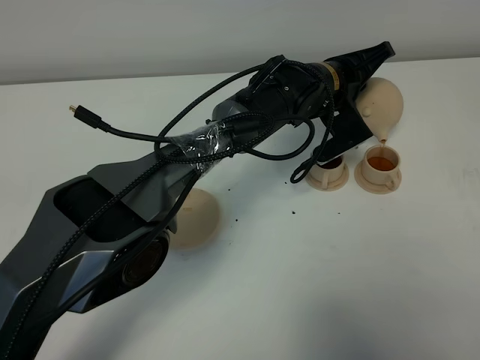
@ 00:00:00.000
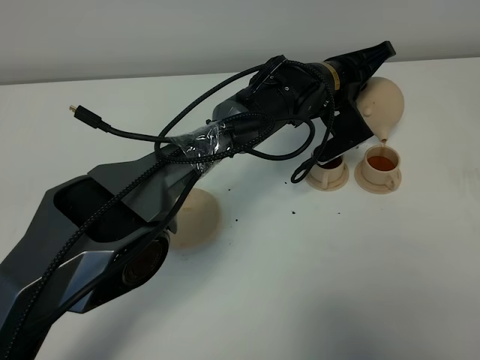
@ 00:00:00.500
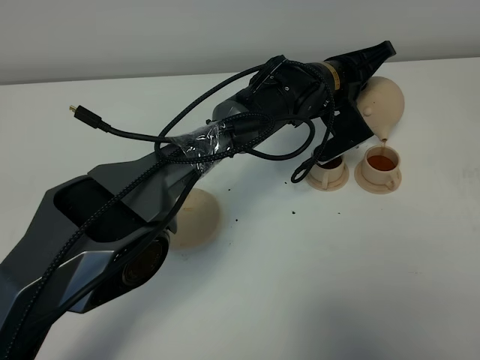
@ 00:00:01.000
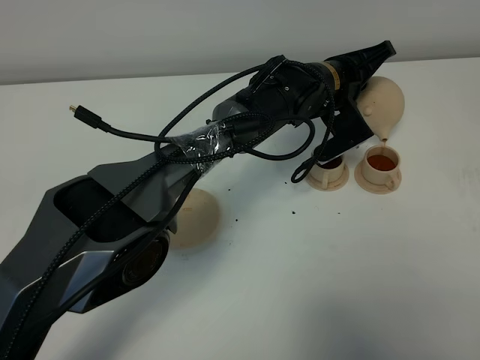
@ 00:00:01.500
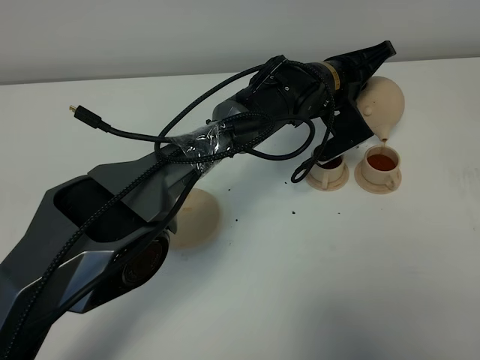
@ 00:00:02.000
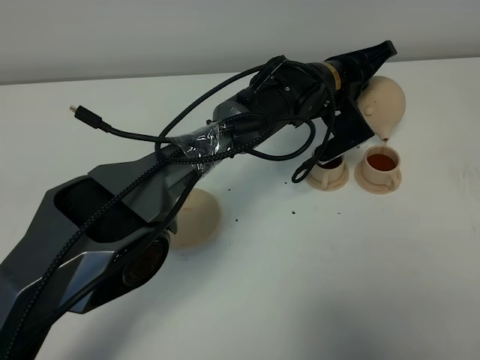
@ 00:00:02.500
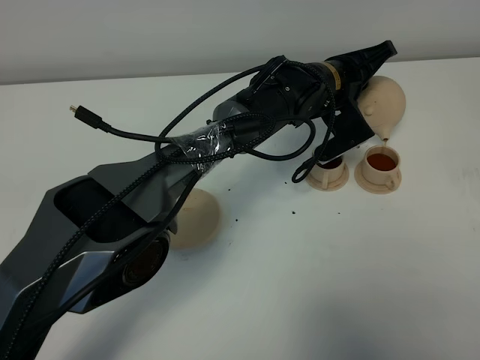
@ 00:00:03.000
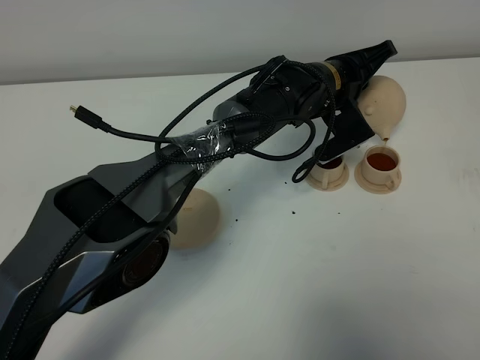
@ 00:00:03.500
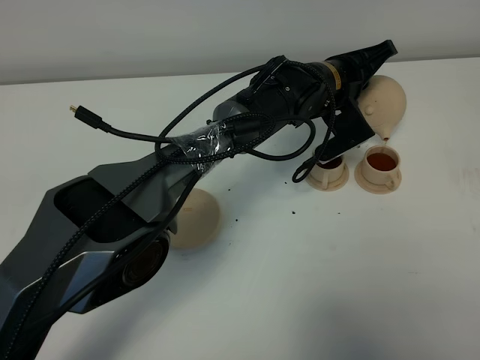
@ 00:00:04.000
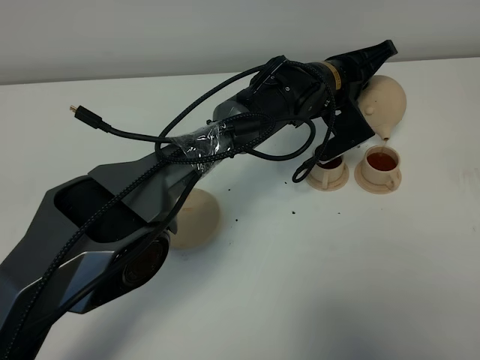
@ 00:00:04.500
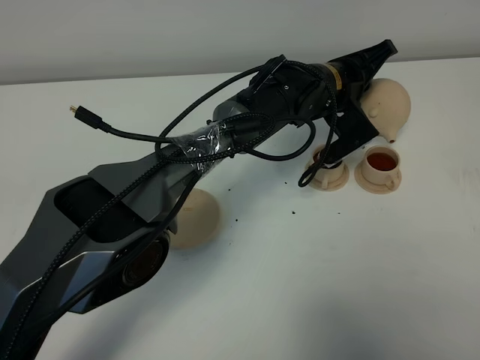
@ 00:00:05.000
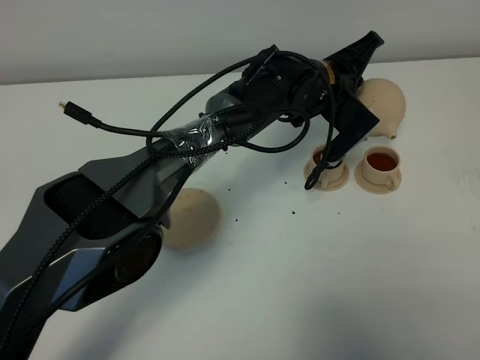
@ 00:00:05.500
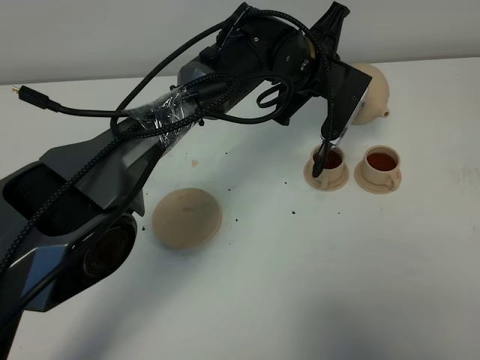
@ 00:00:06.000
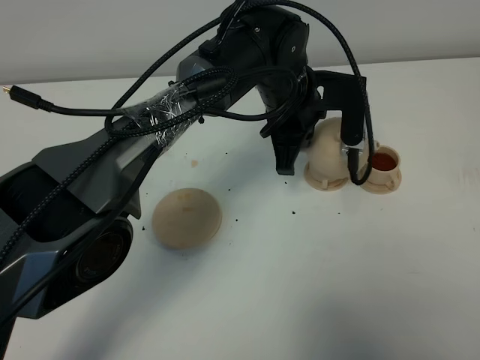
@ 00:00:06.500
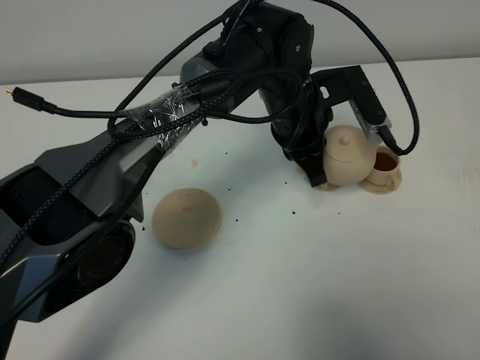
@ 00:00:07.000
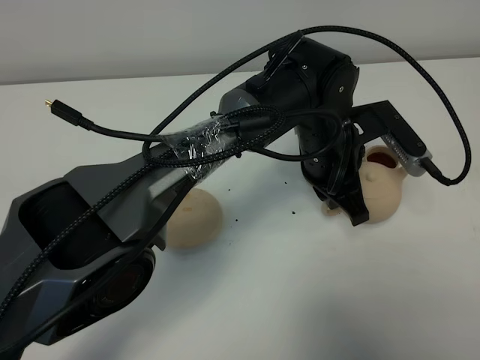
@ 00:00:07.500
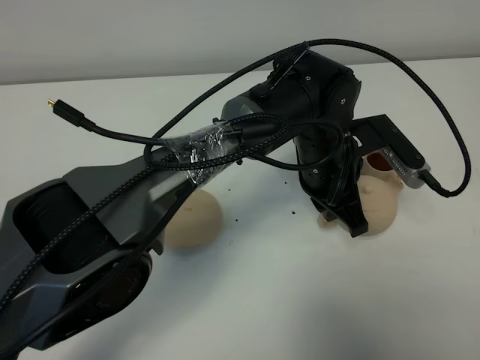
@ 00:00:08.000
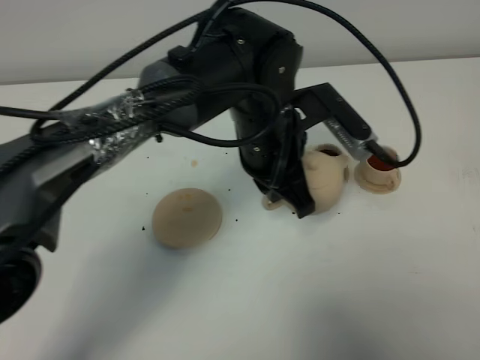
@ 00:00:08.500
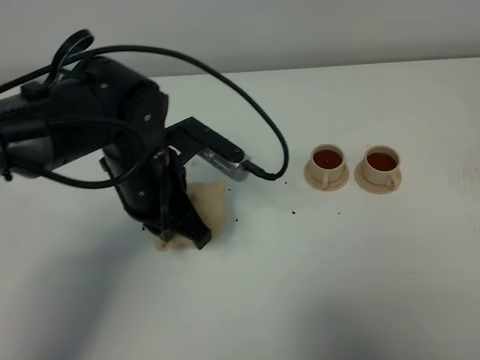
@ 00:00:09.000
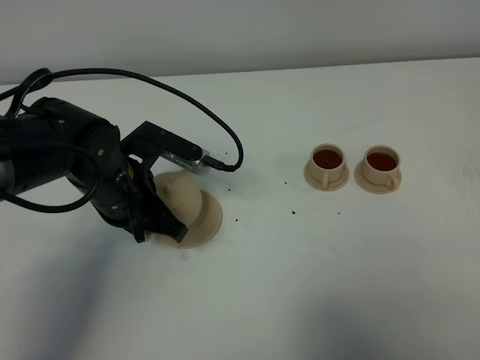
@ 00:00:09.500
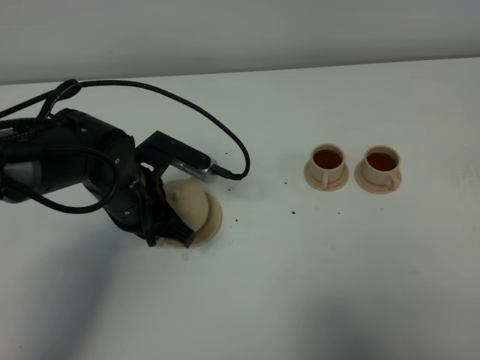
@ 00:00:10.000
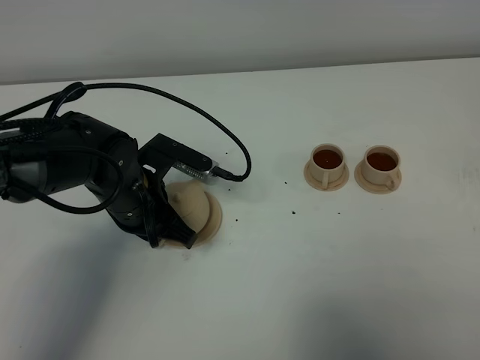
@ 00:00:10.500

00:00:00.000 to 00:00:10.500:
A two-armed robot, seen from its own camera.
Task of the whole recording: grasp the brown teapot and pour the tea into the two brown teacups one by one, put the brown teapot back in its original place.
Step, 00:00:00.000 to 00:00:05.500: Pour tea into the teacup with the left gripper.
00:00:00.000 to 00:00:04.000: Both grippers stay put.
00:00:04.000 to 00:00:06.500: The left gripper moves approximately 10 cm.
00:00:06.500 to 00:00:08.500: The left gripper heads backward, covering approximately 10 cm.
00:00:08.500 to 00:00:10.500: The left gripper moves to the left and downward, roughly 20 cm.

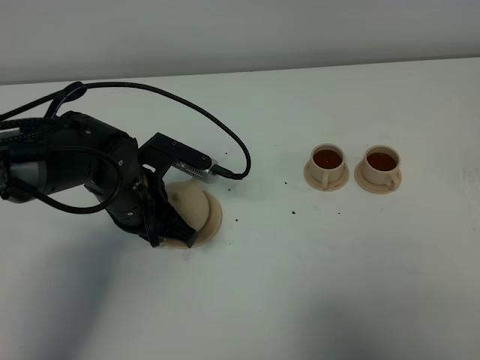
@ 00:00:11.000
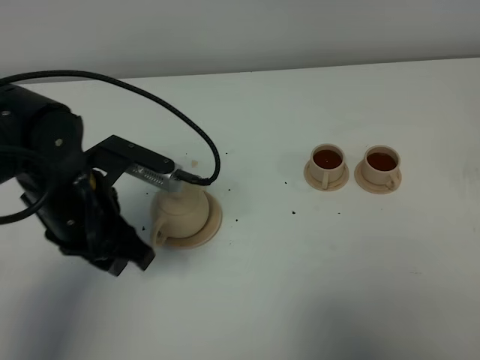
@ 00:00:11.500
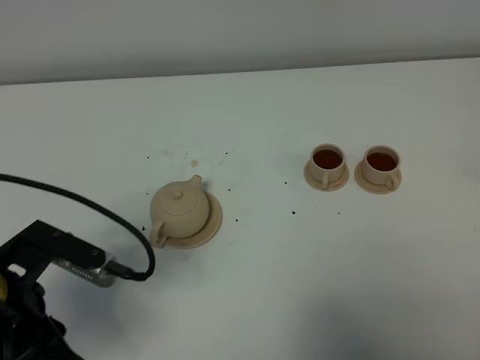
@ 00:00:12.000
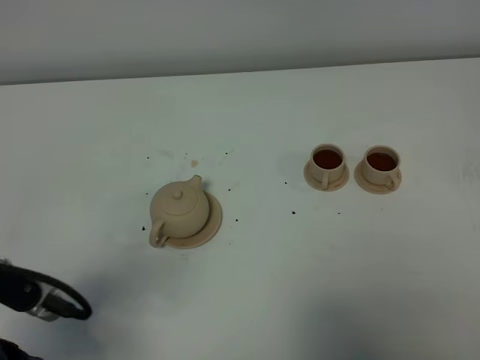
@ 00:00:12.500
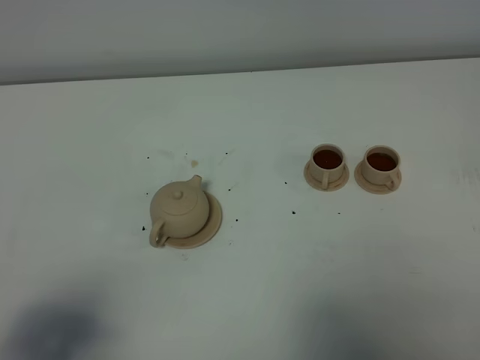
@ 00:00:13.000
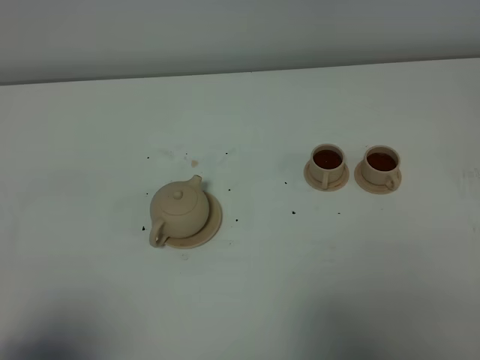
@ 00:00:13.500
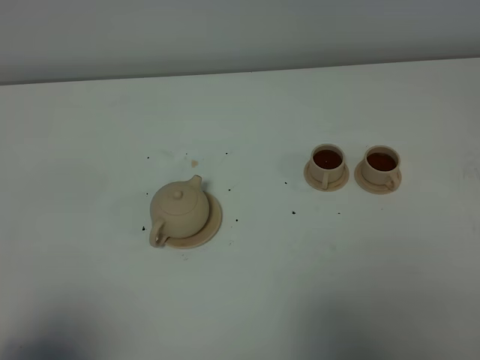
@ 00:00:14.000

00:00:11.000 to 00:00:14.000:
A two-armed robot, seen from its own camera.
Task of the whole recording: grasp the brown teapot and pour the tea into the two brown teacups one by one, put the brown teapot back in its original place.
00:00:11.000 to 00:00:12.500: The left gripper heads backward, to the left and upward, covering about 25 cm, and opens up.
00:00:12.500 to 00:00:14.000: The left gripper moves backward, some 10 cm.

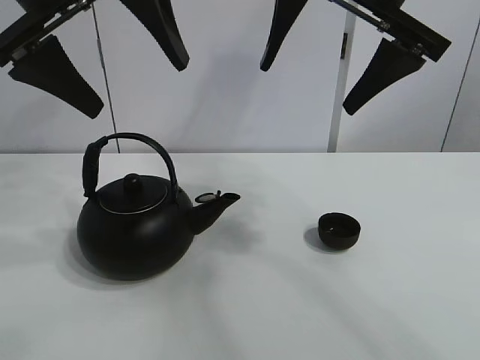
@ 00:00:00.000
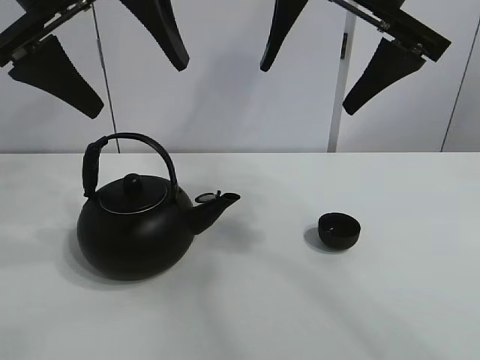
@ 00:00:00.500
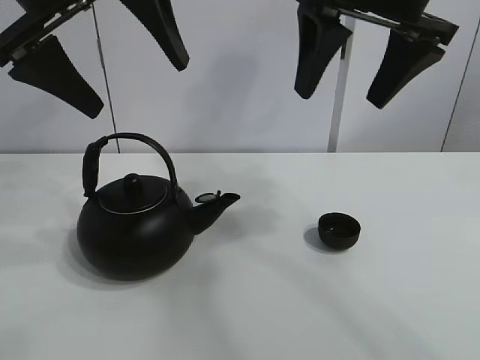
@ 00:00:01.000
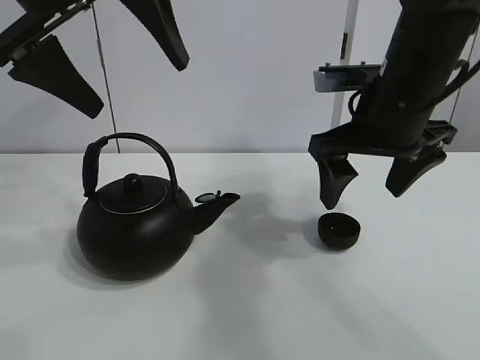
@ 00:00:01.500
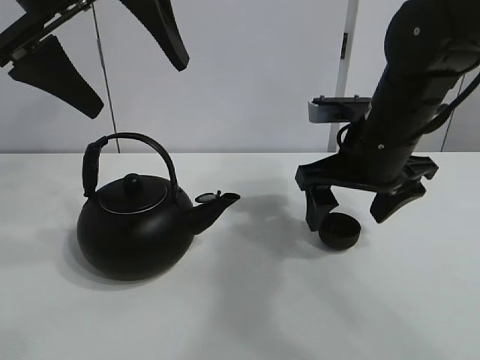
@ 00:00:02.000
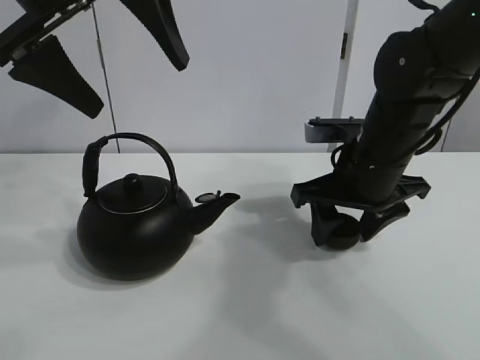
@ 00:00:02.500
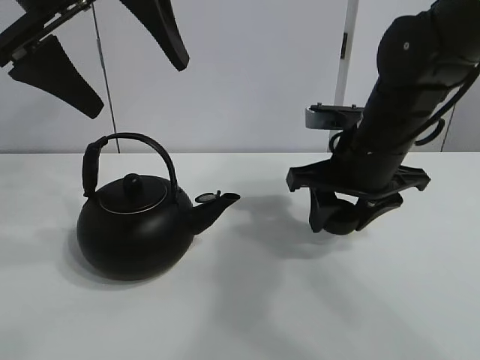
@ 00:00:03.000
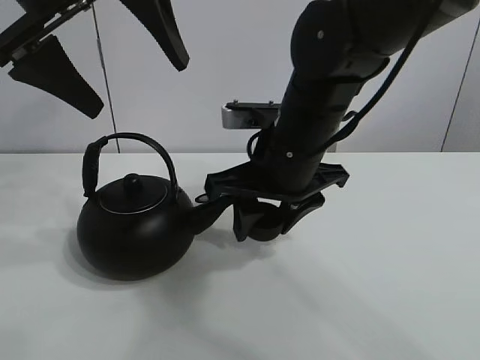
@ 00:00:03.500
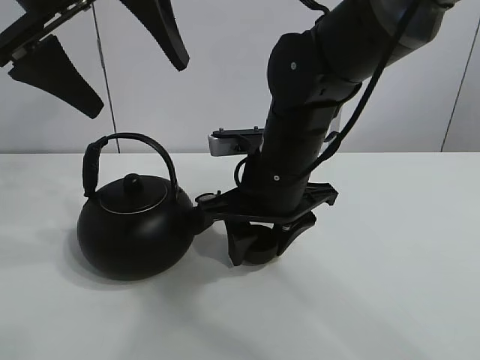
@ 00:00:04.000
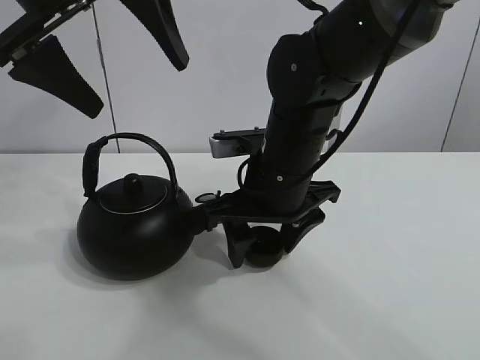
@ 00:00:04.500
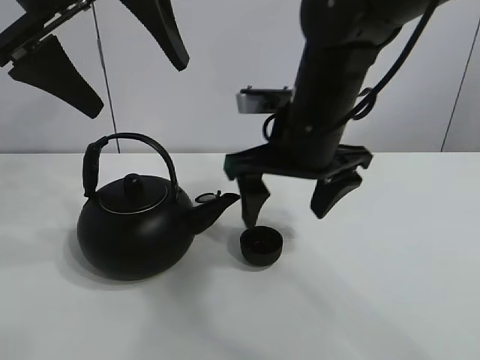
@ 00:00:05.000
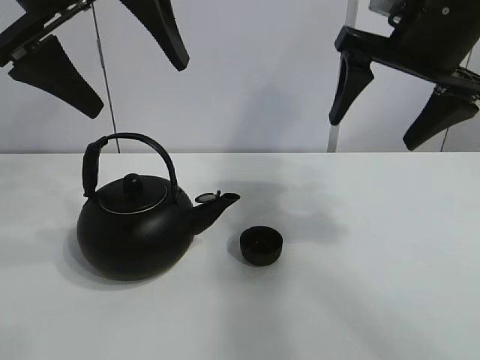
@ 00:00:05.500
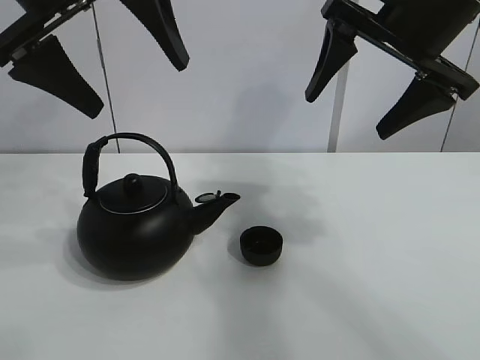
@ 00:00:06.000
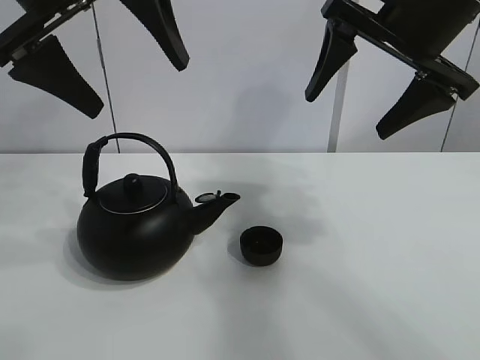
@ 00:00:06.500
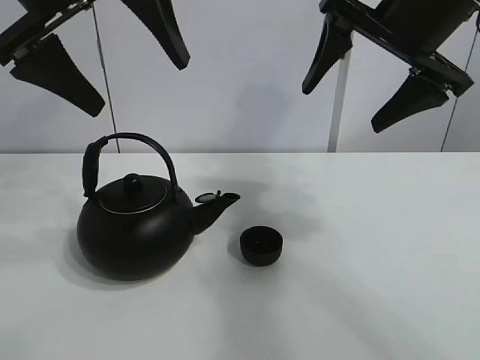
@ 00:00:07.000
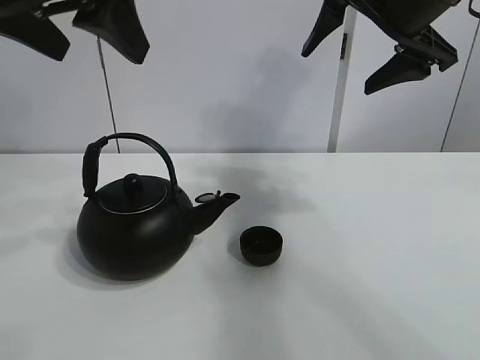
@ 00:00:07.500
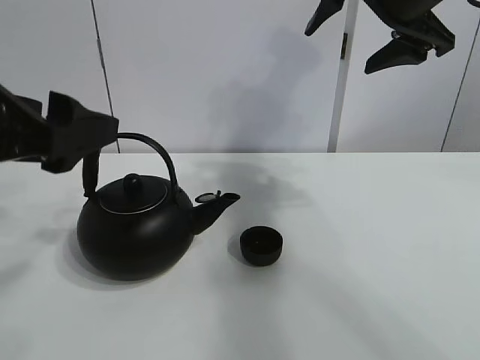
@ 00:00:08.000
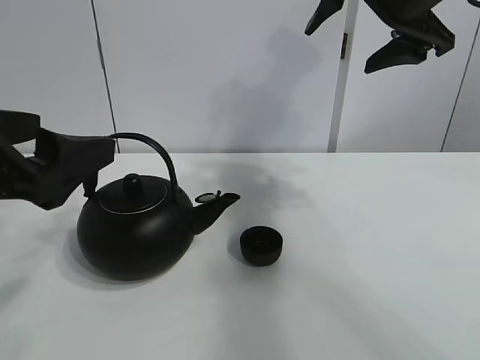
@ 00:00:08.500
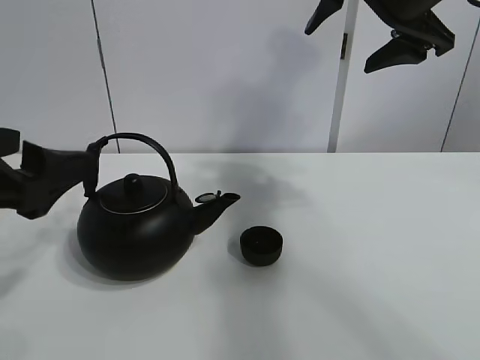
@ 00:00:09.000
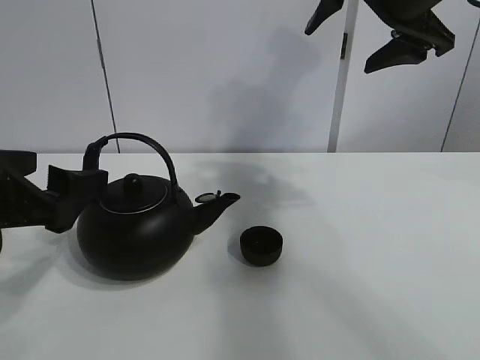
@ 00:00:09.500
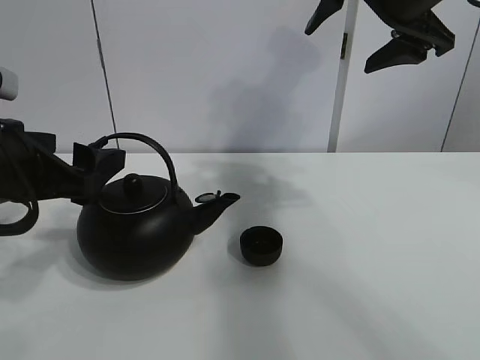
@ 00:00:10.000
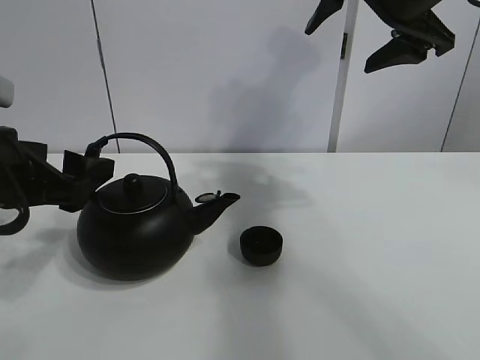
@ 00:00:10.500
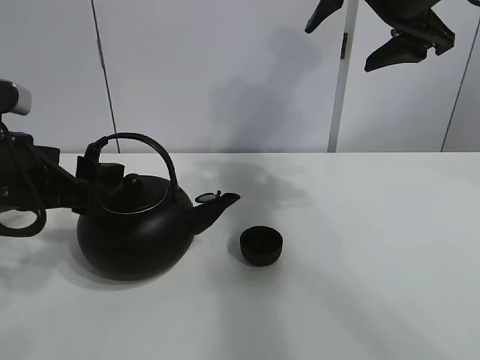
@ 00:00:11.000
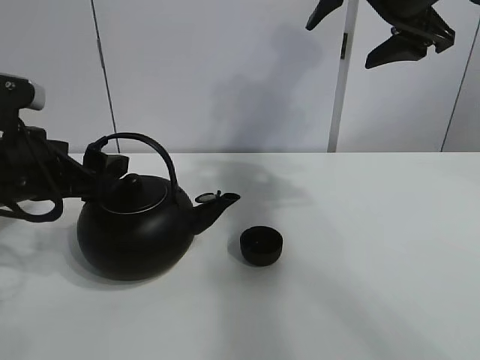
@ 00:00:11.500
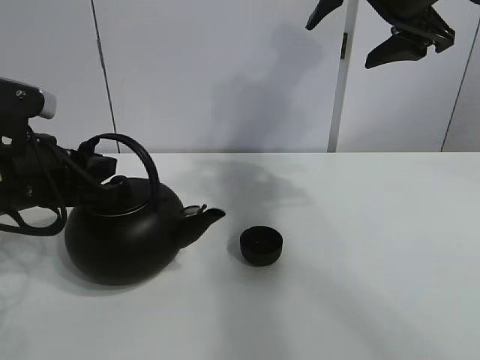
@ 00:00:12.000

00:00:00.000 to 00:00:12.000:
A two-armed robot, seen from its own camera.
Task of the whole recording: pour tea into the teacup.
Step, 00:00:00.000 to 00:00:02.500: Pick up the teacup with the right gripper.
Step, 00:00:03.000 to 00:00:04.500: Place the teacup in the center of view with the right gripper.
00:00:02.000 to 00:00:04.000: The right gripper heads to the left, covering about 10 cm, and closes up.
00:00:04.000 to 00:00:06.000: The right gripper is displaced upward and to the right by some 20 cm, and opens up.
00:00:06.000 to 00:00:08.000: The left gripper travels downward, backward and to the left by about 15 cm.
00:00:08.000 to 00:00:10.000: The left gripper travels downward by about 5 cm.
00:00:10.000 to 00:00:12.000: The left gripper closes its fingers.
